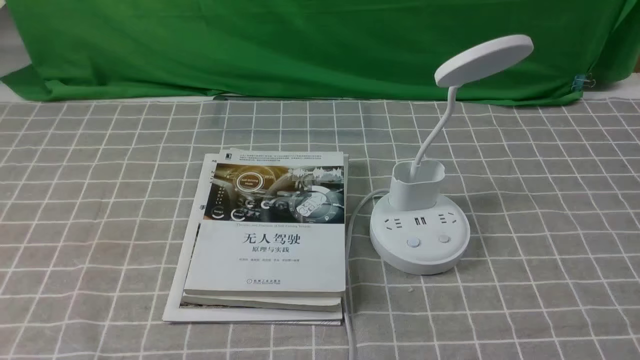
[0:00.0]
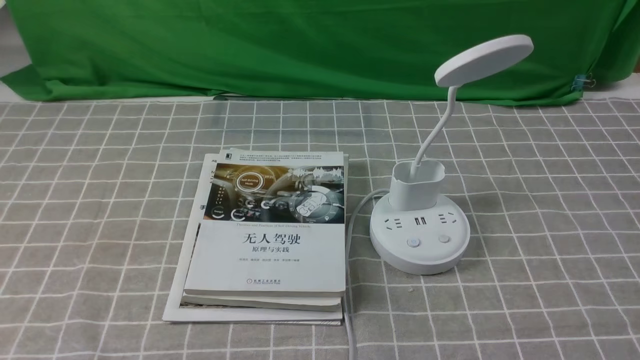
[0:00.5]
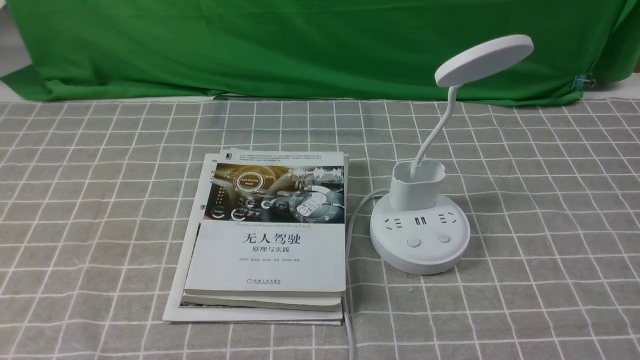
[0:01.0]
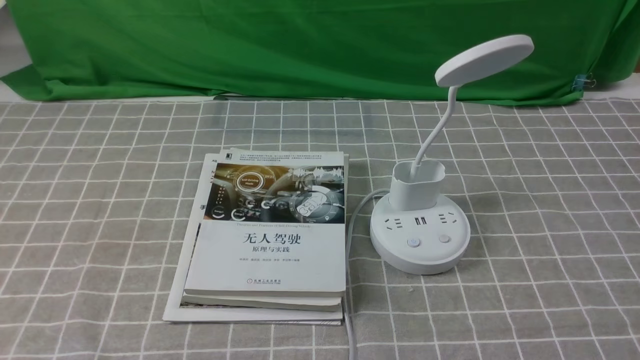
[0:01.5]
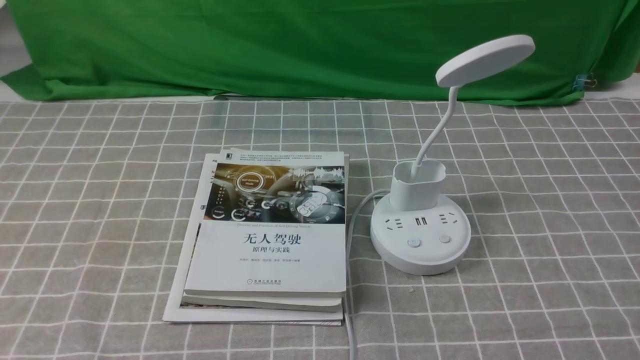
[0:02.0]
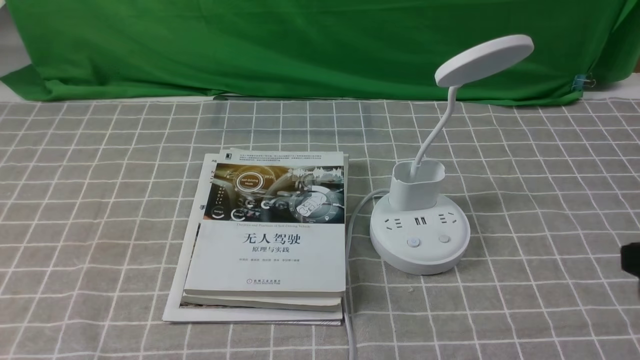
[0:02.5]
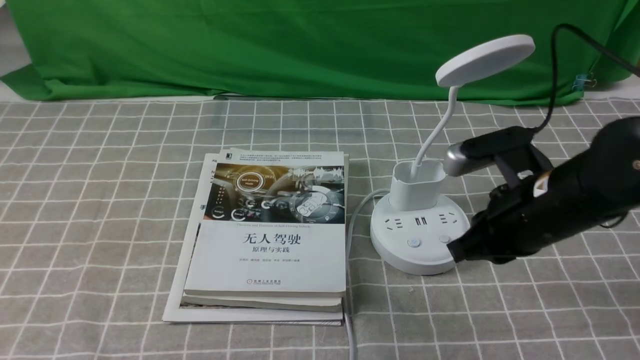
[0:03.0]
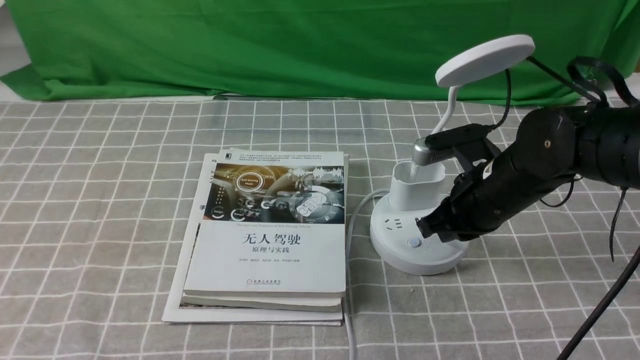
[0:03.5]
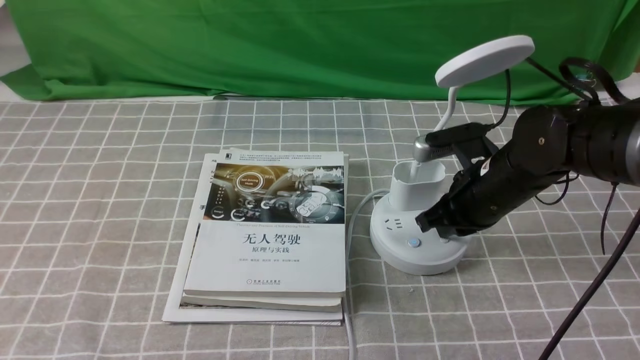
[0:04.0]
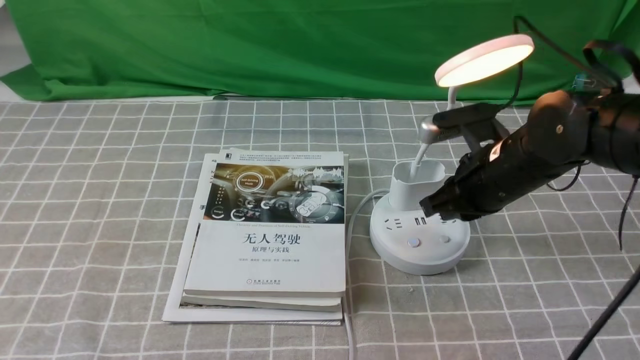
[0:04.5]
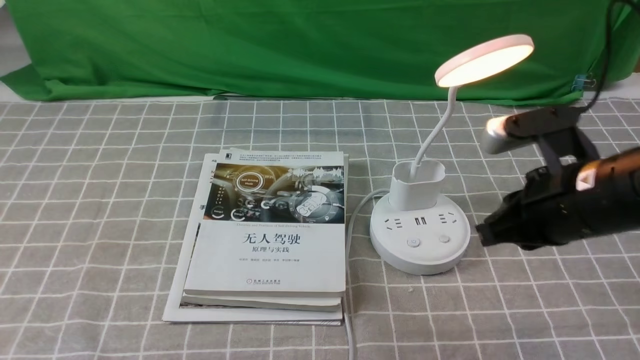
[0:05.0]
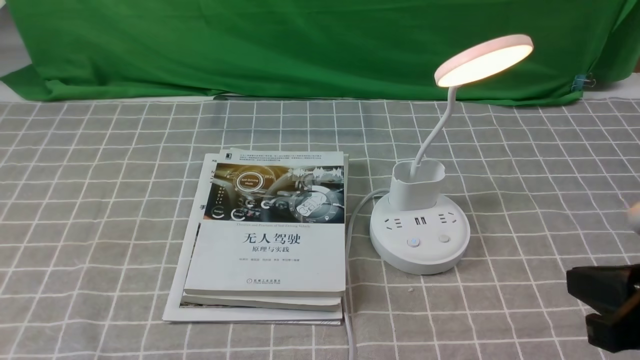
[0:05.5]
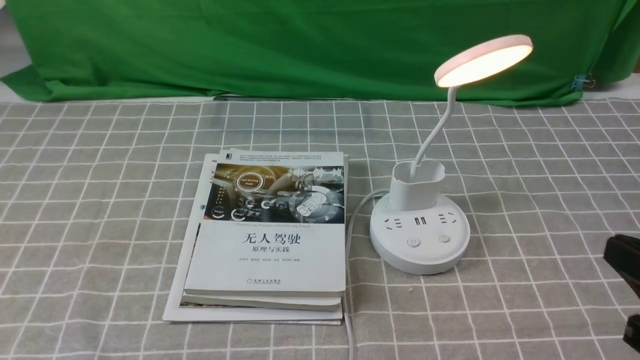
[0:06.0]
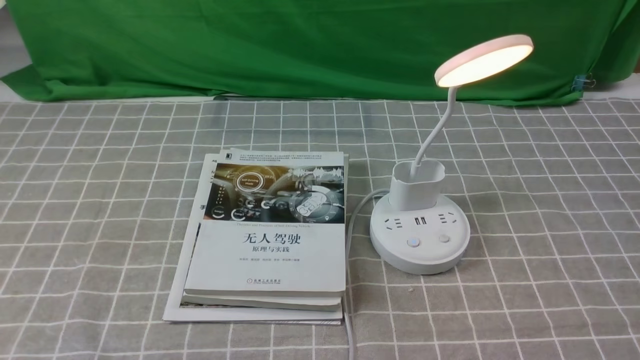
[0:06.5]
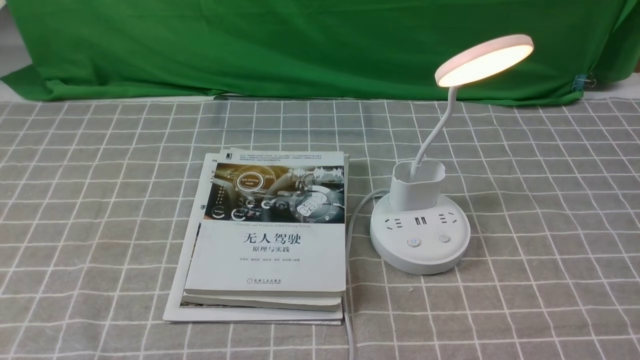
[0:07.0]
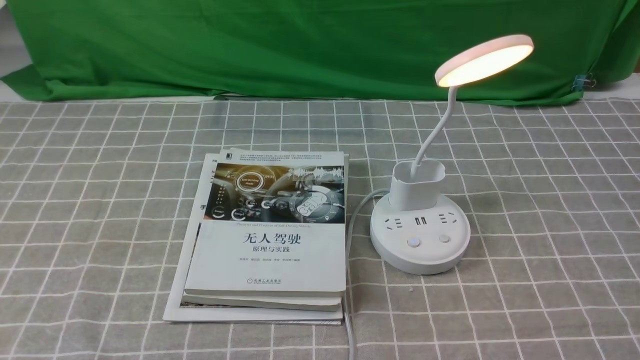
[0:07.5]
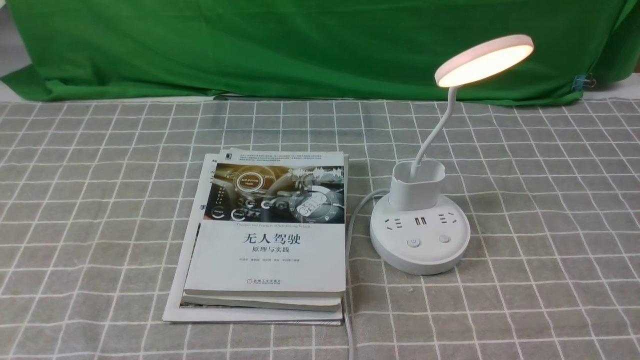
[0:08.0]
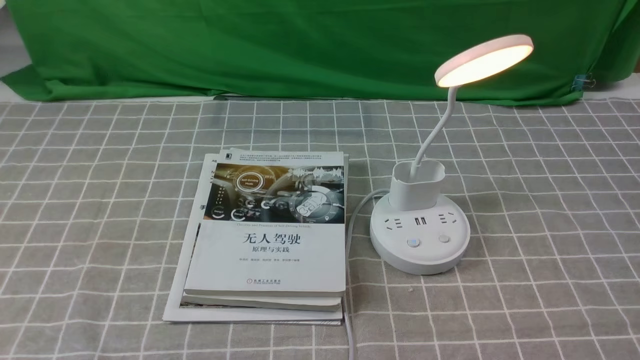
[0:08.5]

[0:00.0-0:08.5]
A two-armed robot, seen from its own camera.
Step, 0:00.0 to 0:04.5: use the right arm to press the button switch on the lamp holder.
0:02.0 to 0:04.0: The right gripper moves forward and to the left, approximately 30 cm, and closes up.
0:04.0 to 0:06.5: The right gripper goes some 30 cm backward and to the right.
